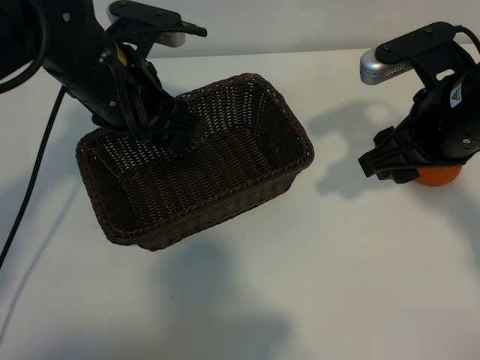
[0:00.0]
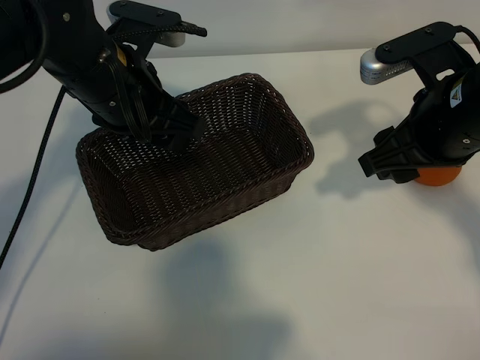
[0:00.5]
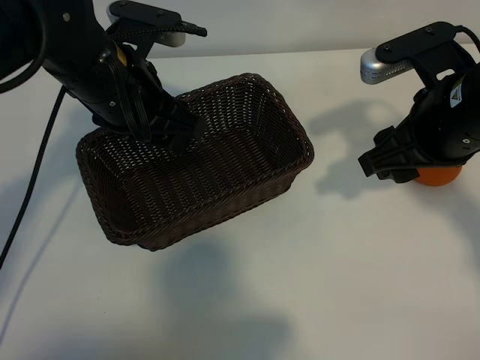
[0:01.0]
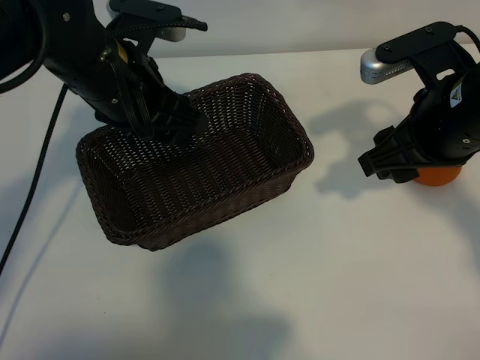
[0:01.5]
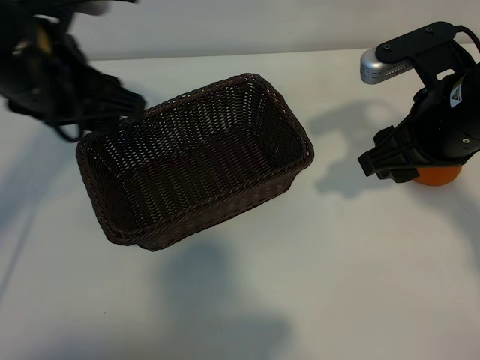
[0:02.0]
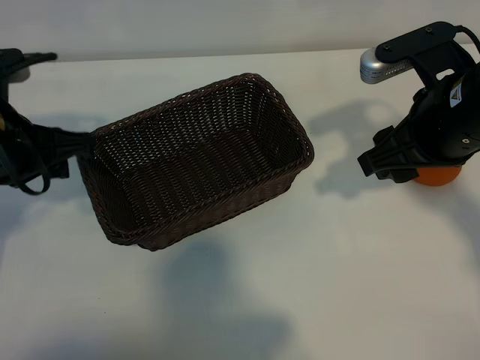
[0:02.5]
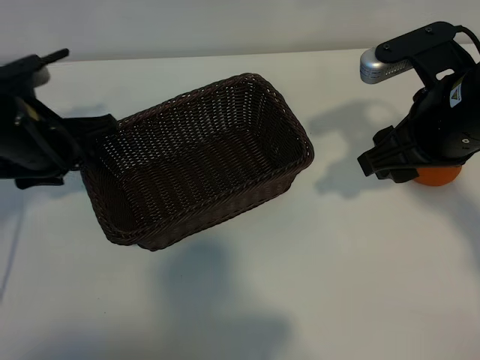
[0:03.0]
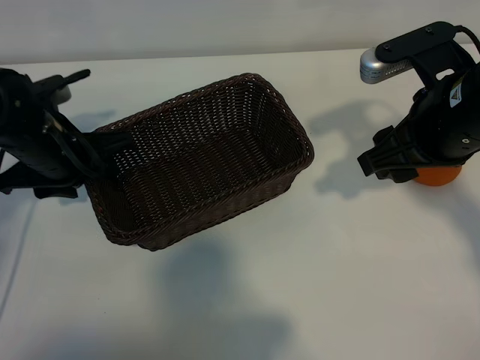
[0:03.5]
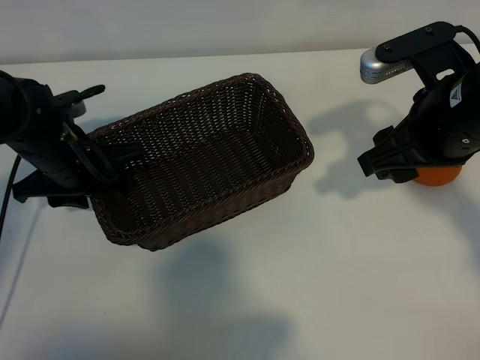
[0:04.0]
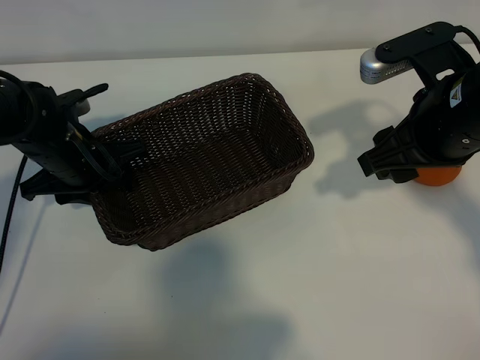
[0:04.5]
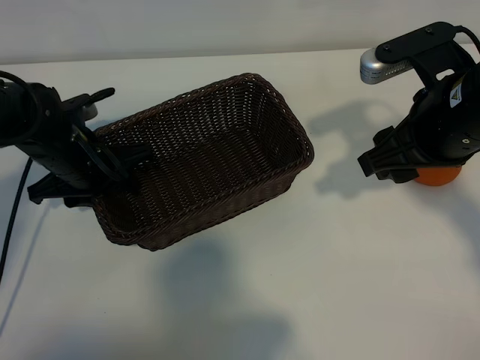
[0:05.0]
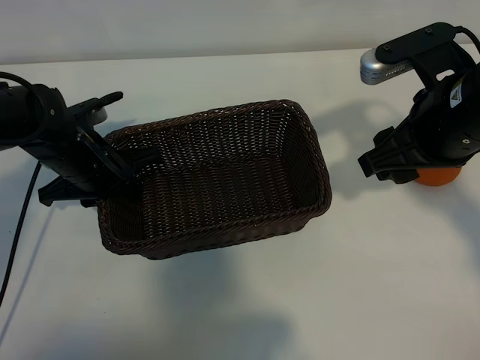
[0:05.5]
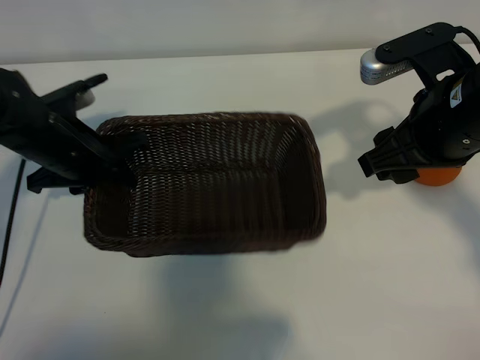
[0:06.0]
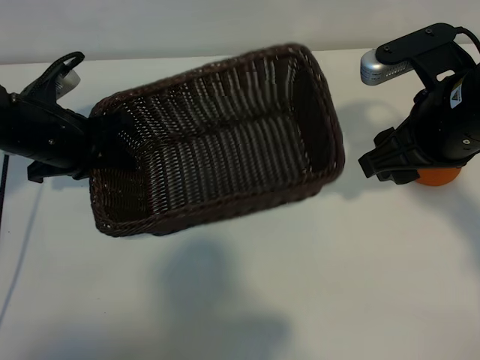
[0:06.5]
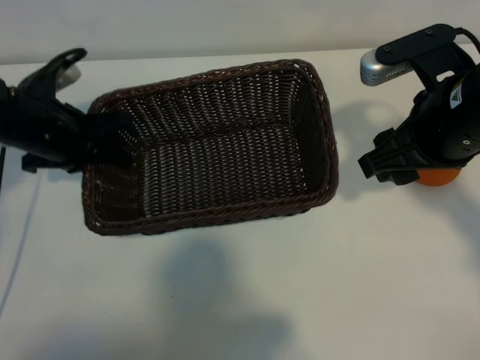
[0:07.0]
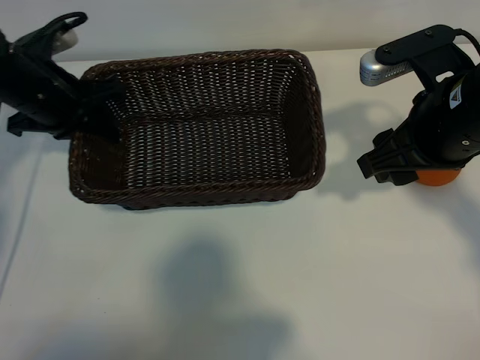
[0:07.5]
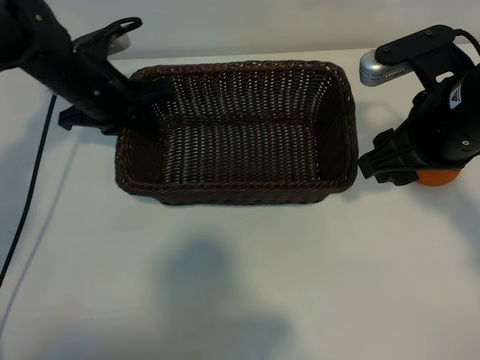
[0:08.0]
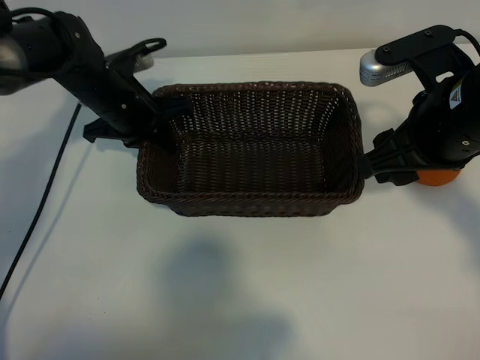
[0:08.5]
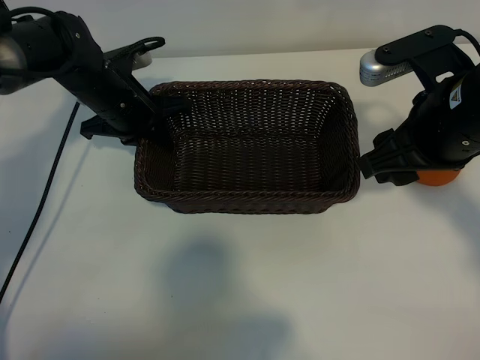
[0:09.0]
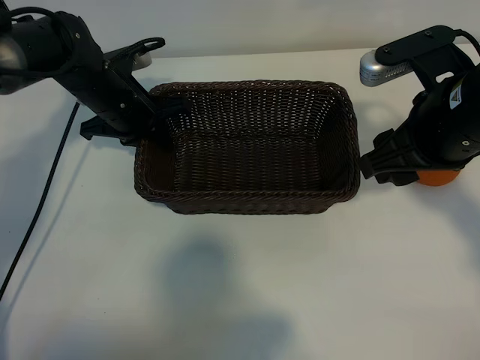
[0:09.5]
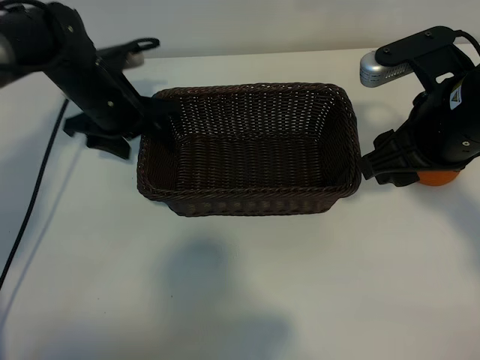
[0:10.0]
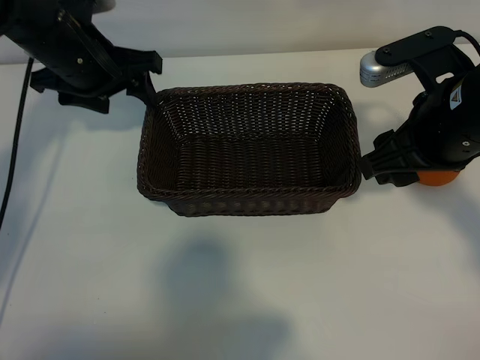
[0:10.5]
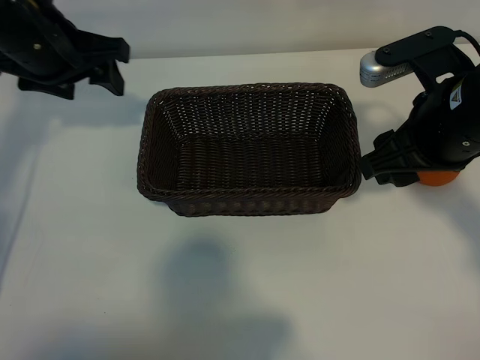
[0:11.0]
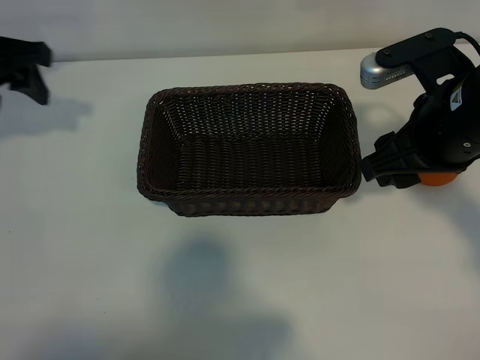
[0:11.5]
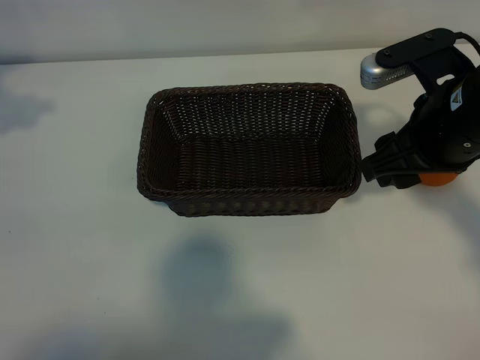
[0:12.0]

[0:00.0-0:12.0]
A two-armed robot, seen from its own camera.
Task of the whole recording: pick up the orange and put it into the basket.
Step, 0:01.5 to 0:05.0: Grasp the basket with left gripper.
Step, 0:06.0 to 0:09.5: Place the basket in the center of view with left gripper.

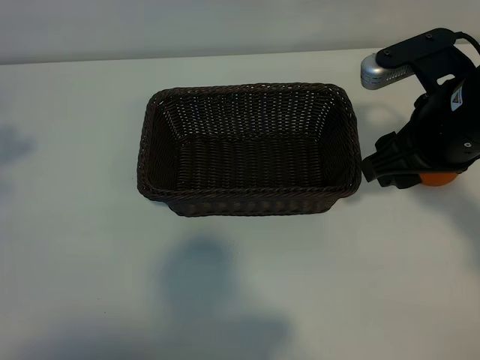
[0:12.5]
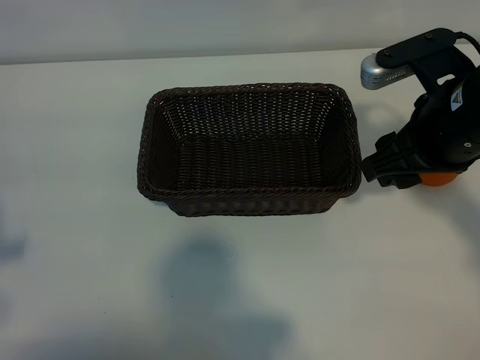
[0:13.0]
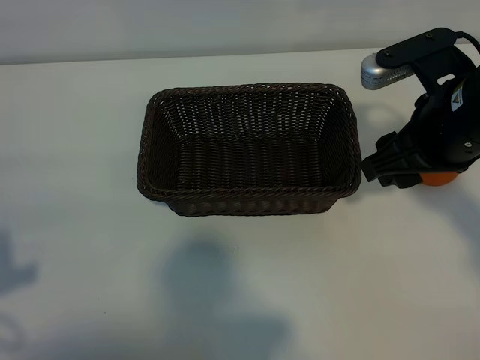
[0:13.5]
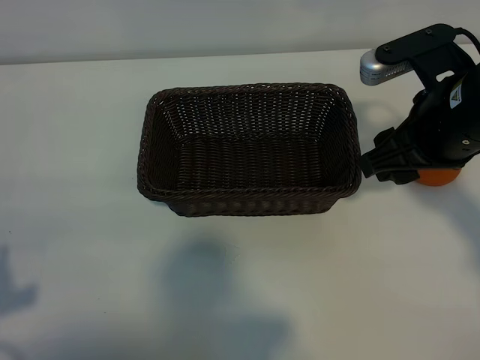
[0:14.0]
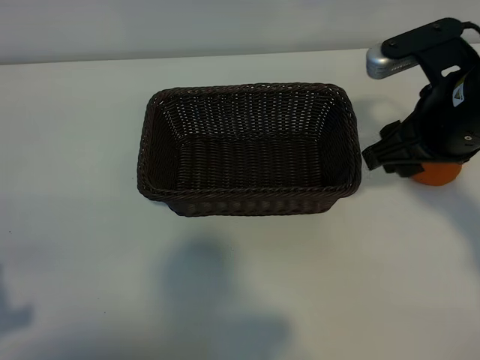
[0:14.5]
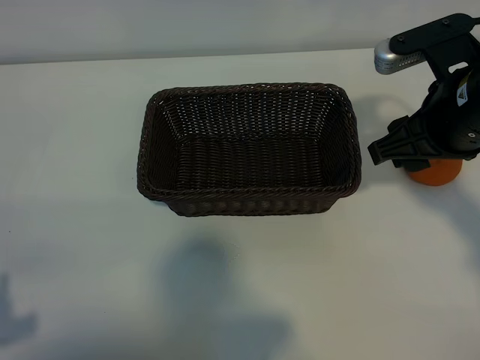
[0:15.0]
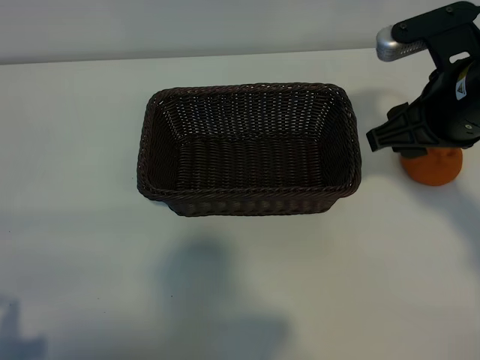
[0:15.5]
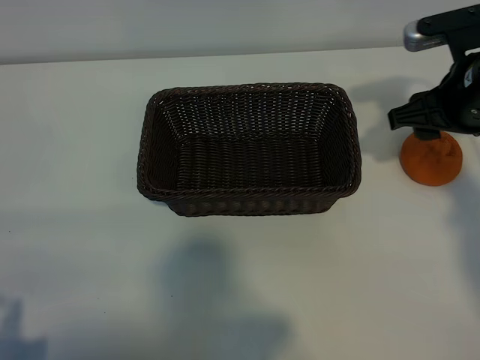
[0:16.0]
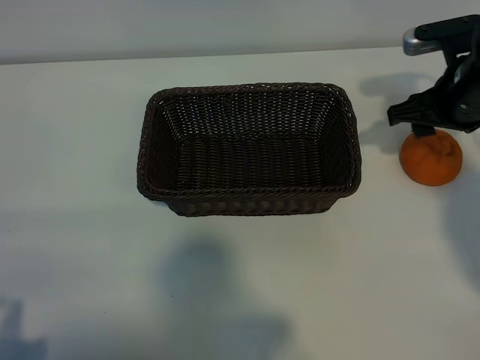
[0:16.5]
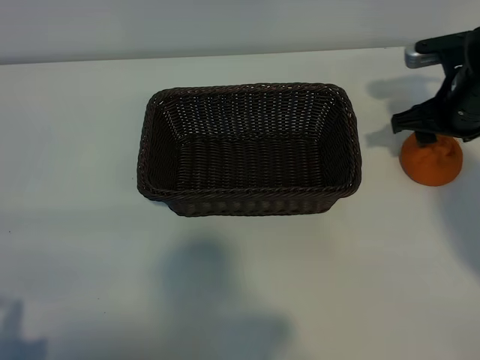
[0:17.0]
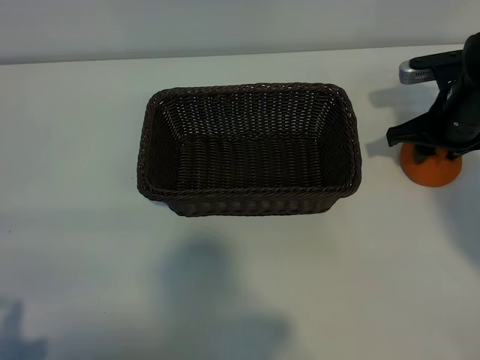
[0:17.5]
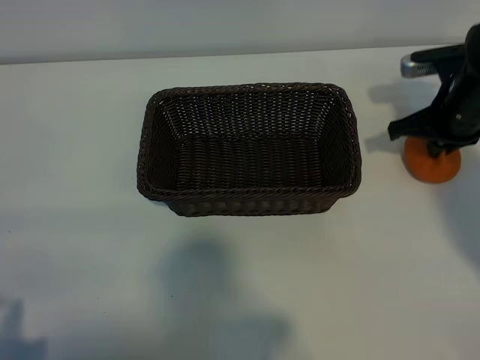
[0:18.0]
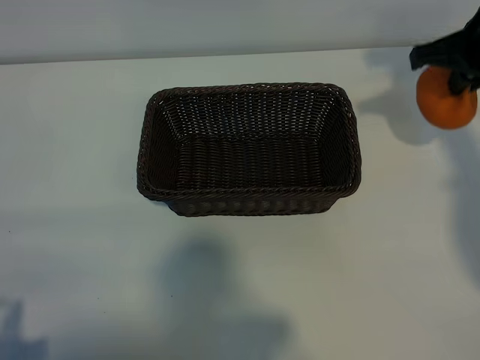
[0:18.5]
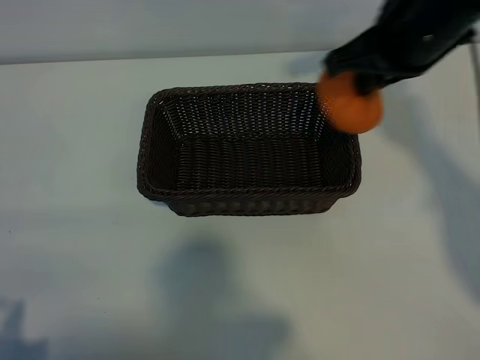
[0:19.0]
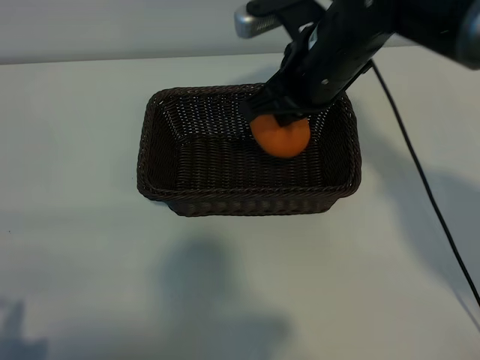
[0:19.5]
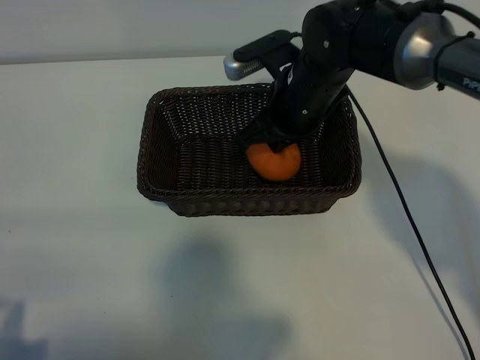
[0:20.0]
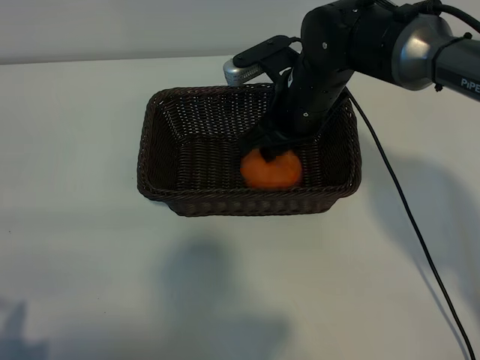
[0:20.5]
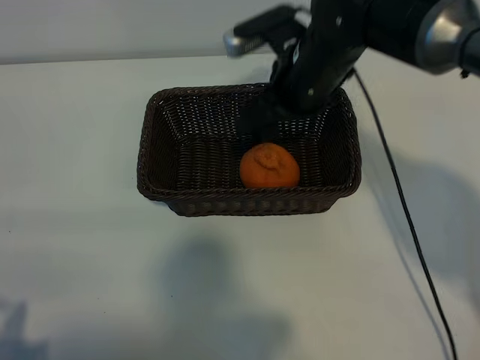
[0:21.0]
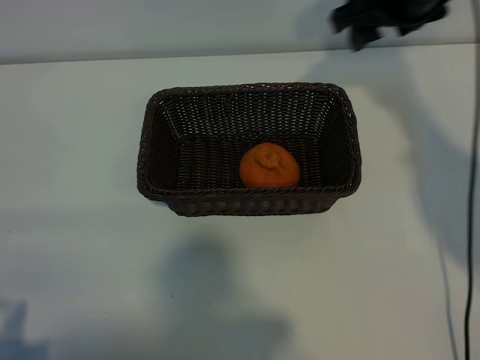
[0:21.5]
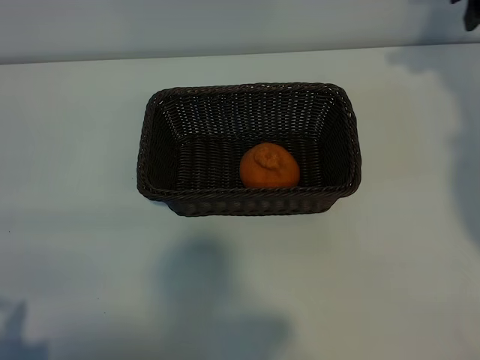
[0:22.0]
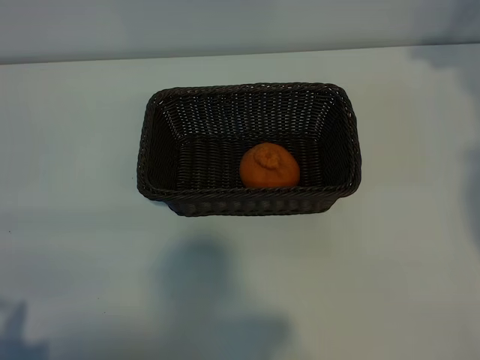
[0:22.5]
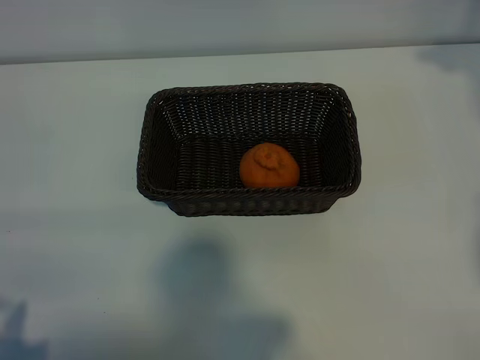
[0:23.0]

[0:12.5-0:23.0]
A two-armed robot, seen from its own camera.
Task of the whole recording: pick up the orange and put it into the basket.
Step, 0:12.5 to 0:17.5: Grasp the orange with right gripper.
Step, 0:18.0 to 0:20.5: Place the orange in the basket with right gripper.

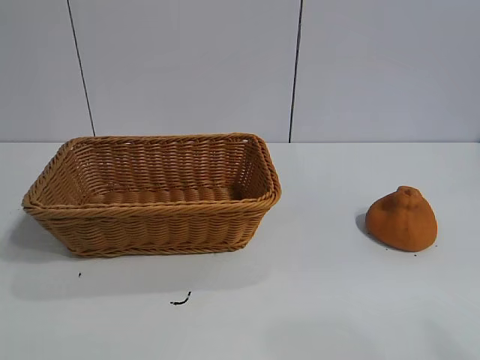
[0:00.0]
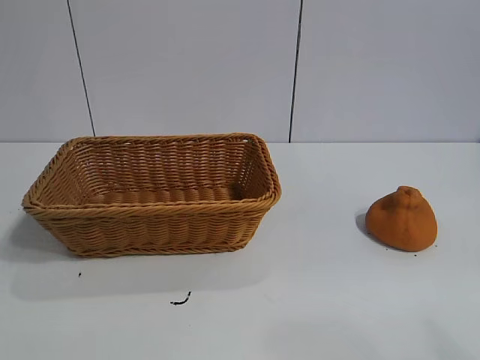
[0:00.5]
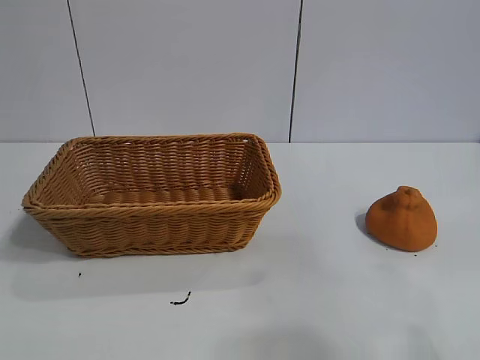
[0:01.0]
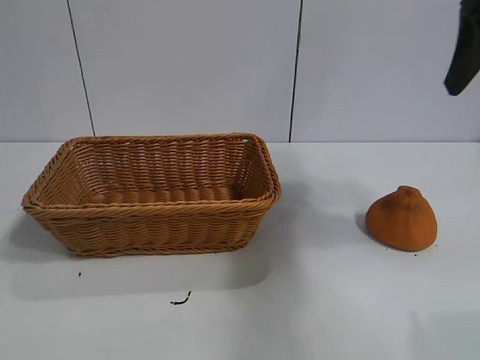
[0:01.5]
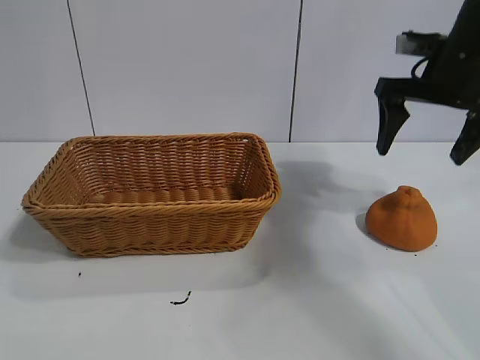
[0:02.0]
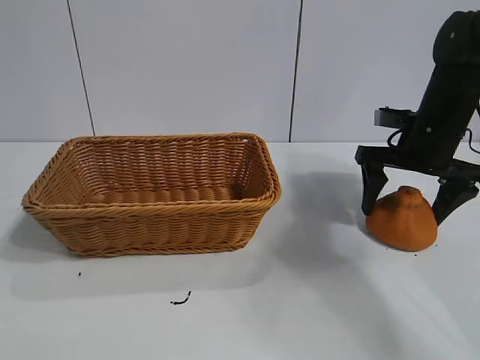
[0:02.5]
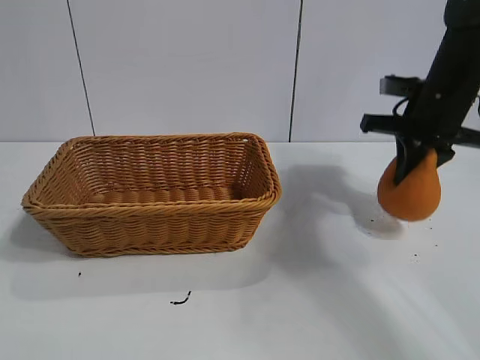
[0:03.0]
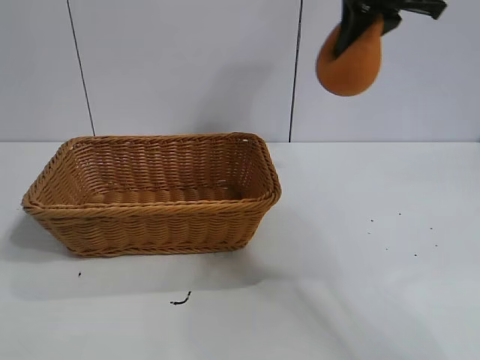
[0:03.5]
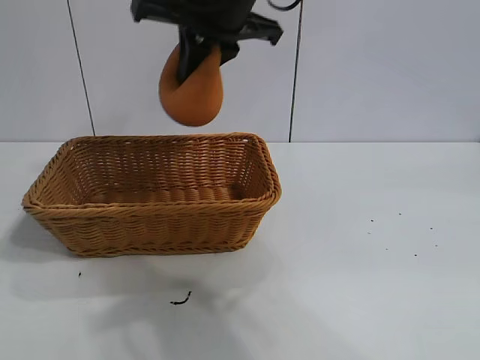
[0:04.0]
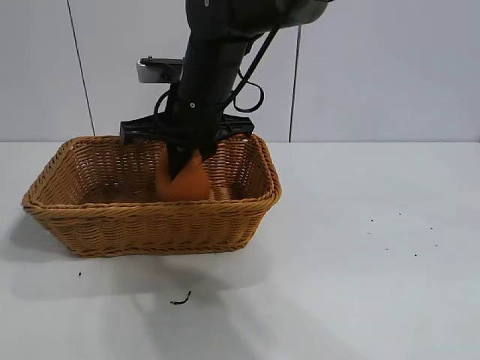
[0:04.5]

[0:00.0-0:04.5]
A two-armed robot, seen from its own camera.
Task of the whole recording: pick up the orange and put it into the basket.
Step, 0:01.0 to 0:02.5: Grasp the orange with right gripper.
